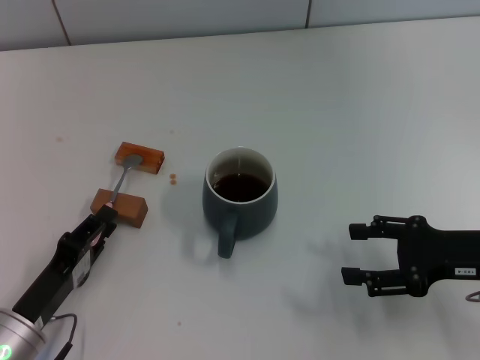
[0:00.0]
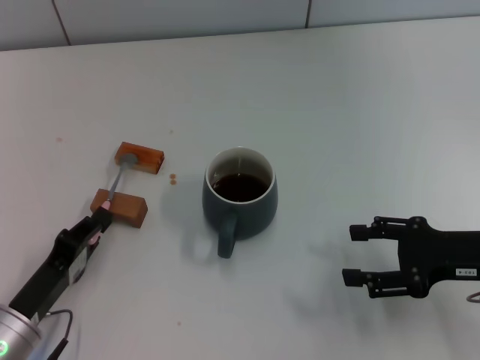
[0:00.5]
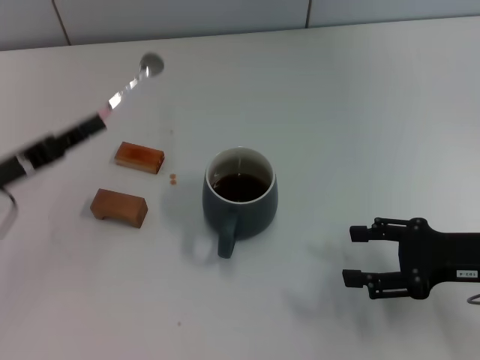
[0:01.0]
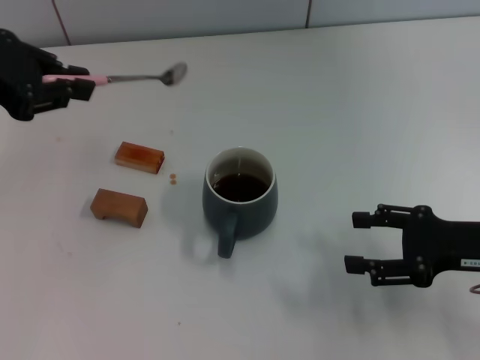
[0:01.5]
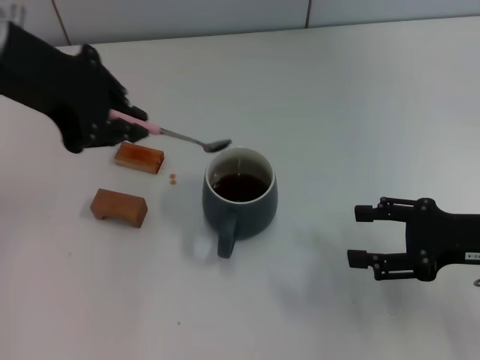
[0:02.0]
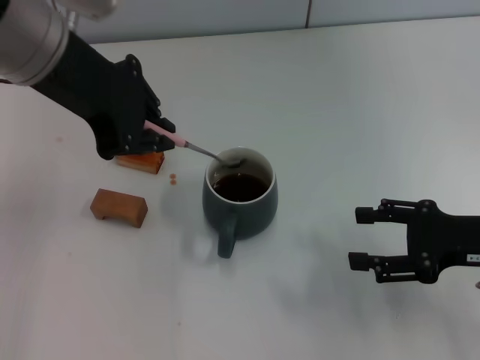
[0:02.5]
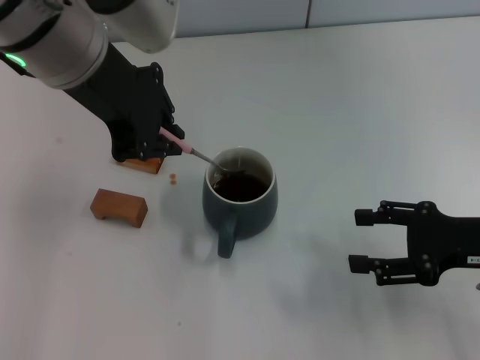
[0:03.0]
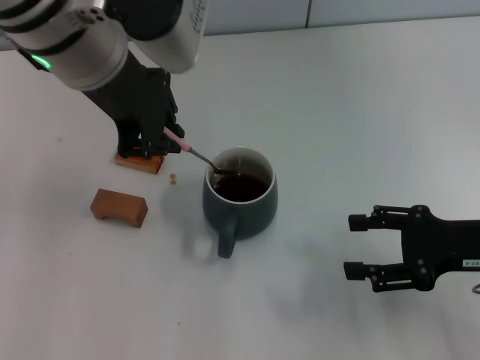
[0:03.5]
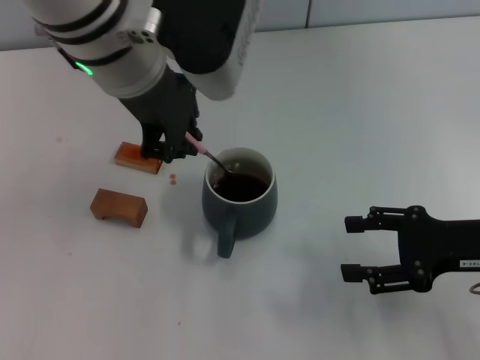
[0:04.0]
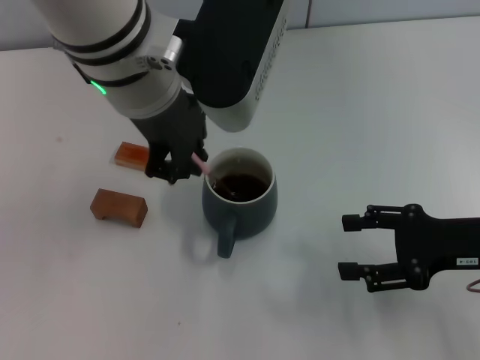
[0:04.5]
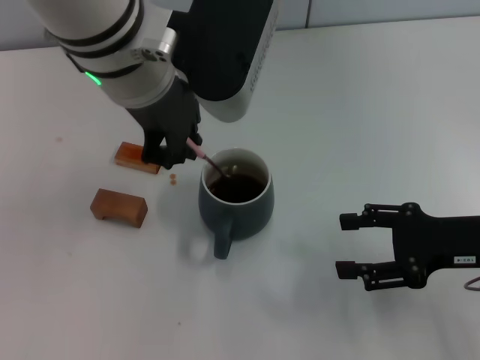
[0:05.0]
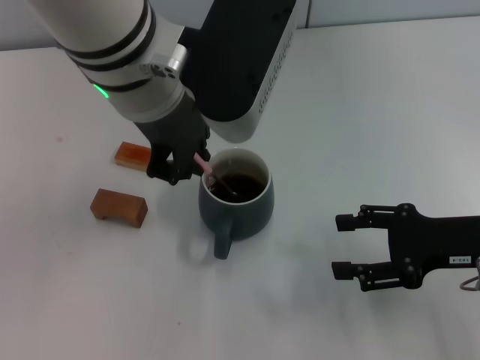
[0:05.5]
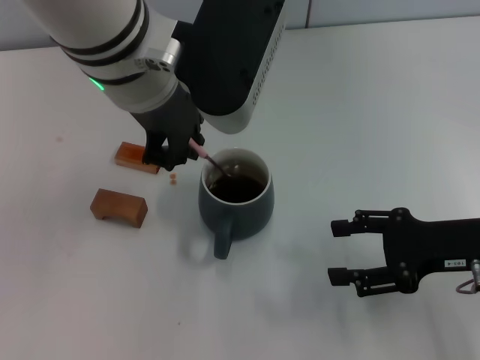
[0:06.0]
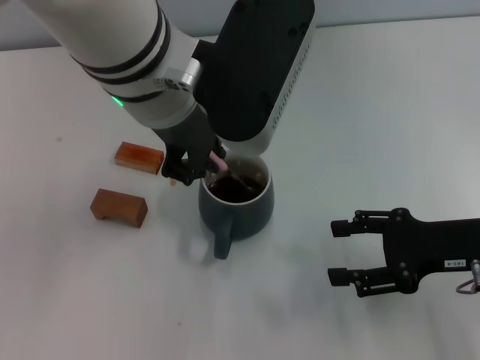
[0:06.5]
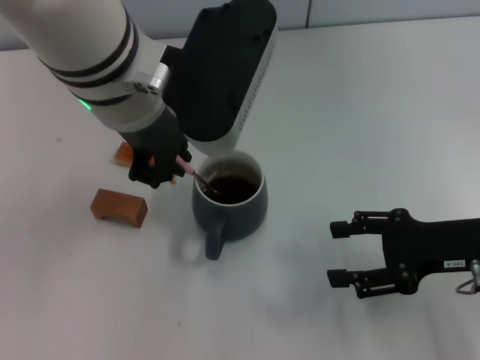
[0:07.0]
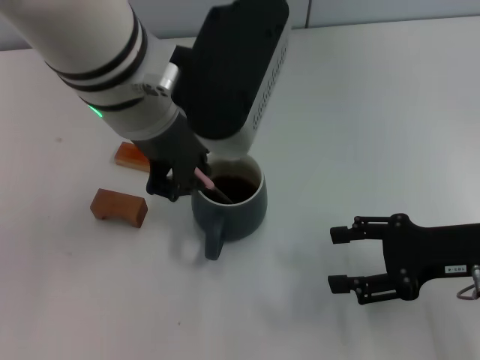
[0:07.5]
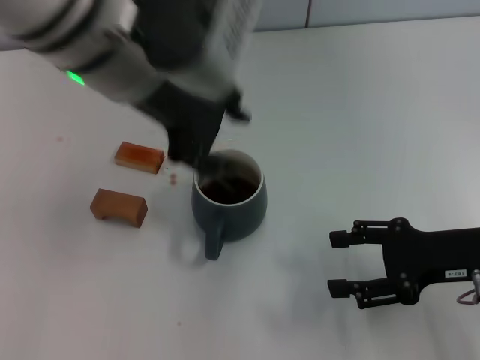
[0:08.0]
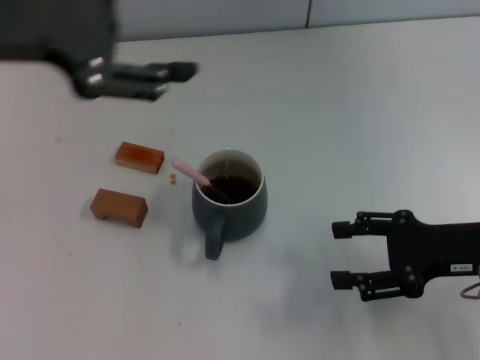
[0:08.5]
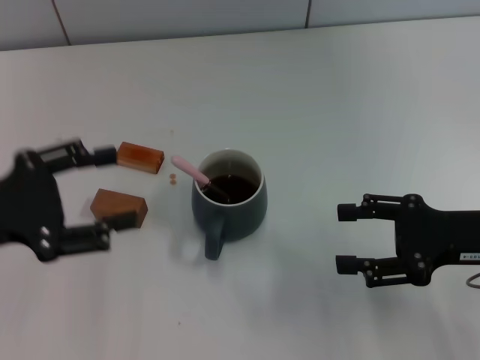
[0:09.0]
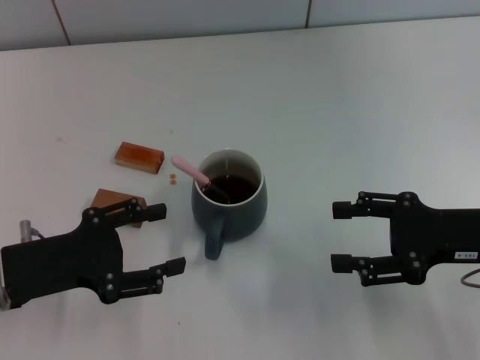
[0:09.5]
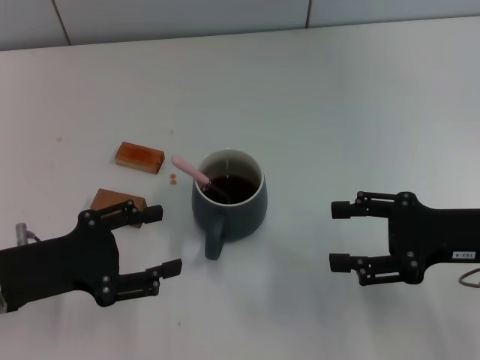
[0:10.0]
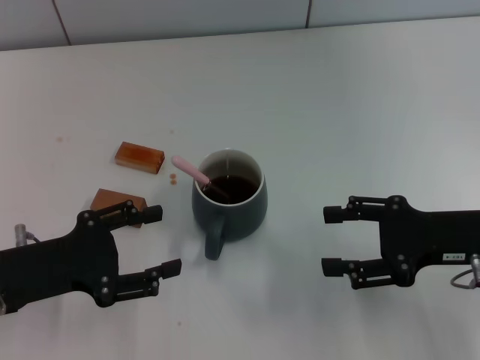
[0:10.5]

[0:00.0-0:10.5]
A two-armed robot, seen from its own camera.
Task of the whole recording: Move the grey cup to the center, lift the pink spoon, stir it three times in the cup, and put the spoon into the cup.
Step, 0:01.0 to 0:07.5: Stir the coffee in the cup with the left gripper.
0:00.0 to 0:02.0: The left gripper shifts approximately 35 cm upward and forward.
0:02.0 to 0:04.0: The left gripper goes some 10 cm to the right.
0:04.0 to 0:06.5: The grippers stay close to where they were, moving slightly.
0:06.5 to 0:08.5: The left gripper heads to the left, covering about 15 cm, and opens up.
0:08.5 to 0:10.5: The left gripper heads downward, covering approximately 25 cm.
